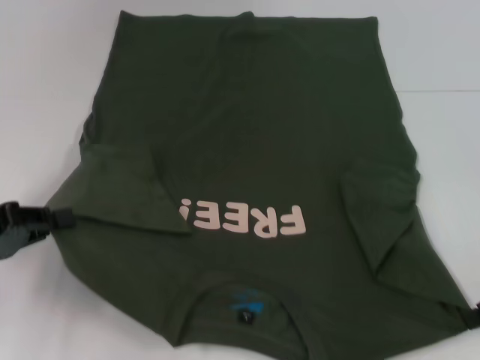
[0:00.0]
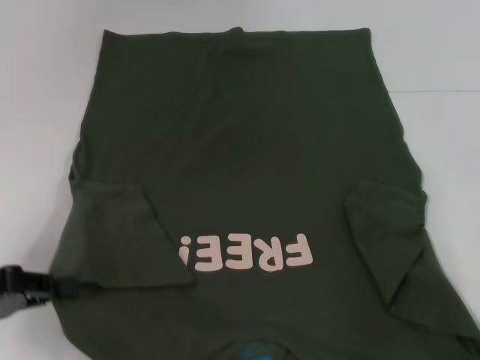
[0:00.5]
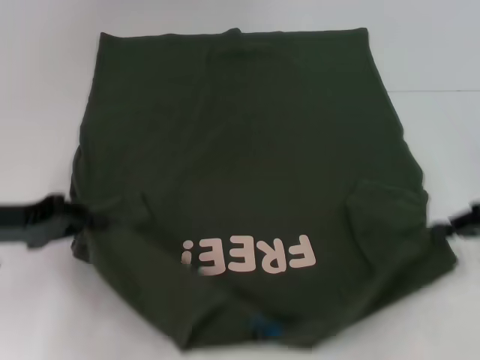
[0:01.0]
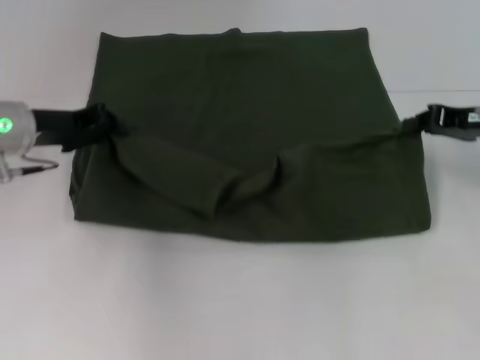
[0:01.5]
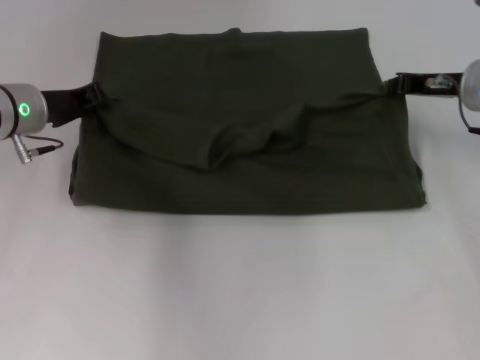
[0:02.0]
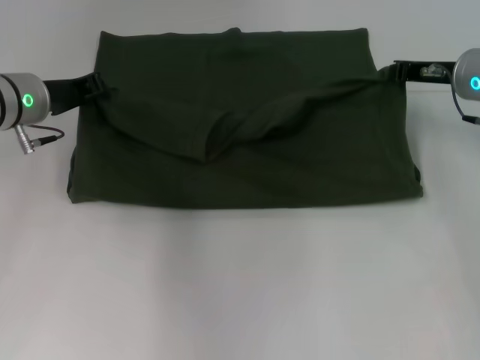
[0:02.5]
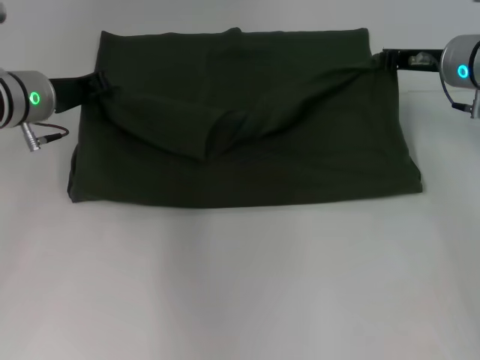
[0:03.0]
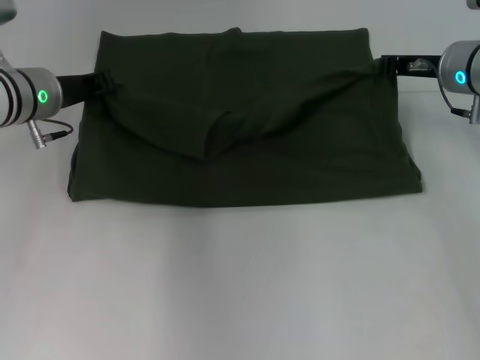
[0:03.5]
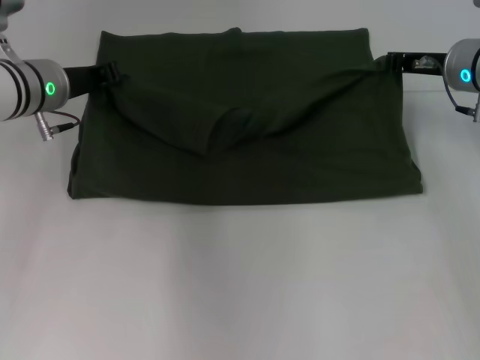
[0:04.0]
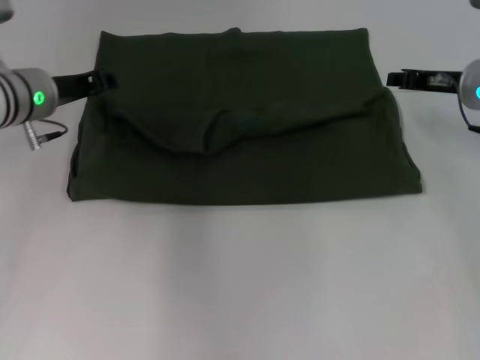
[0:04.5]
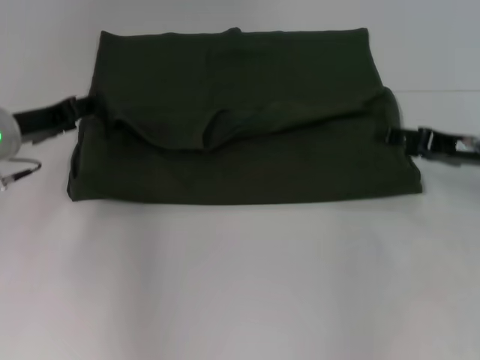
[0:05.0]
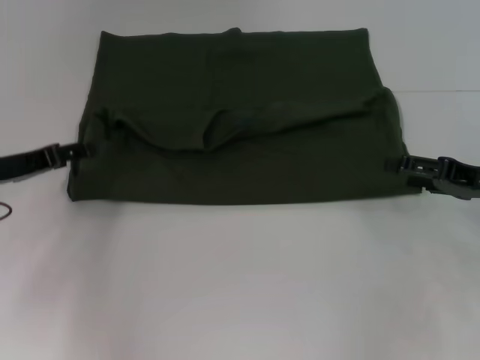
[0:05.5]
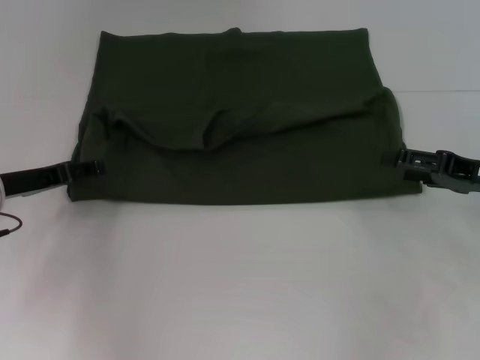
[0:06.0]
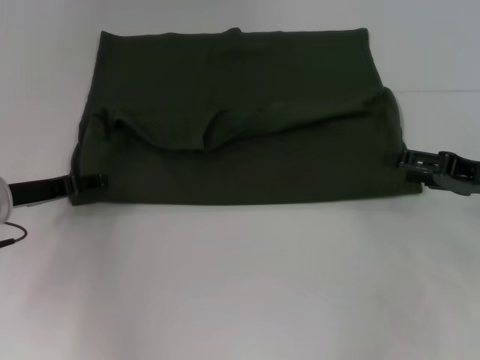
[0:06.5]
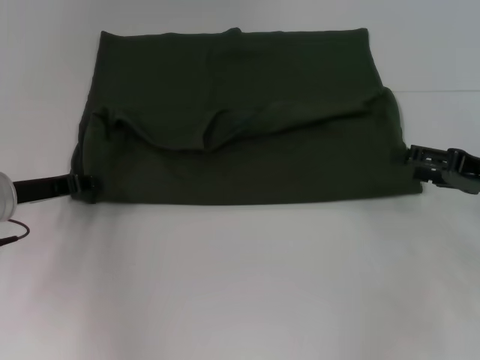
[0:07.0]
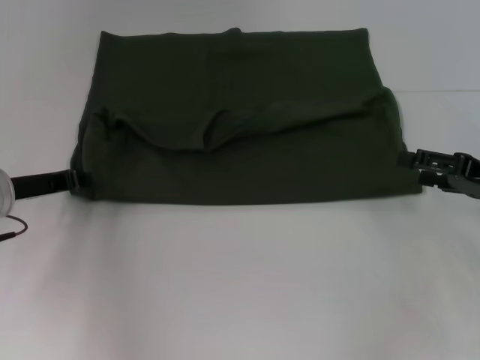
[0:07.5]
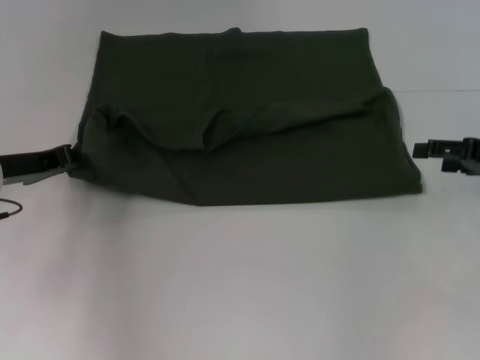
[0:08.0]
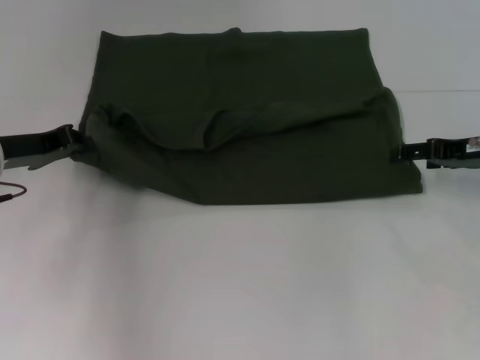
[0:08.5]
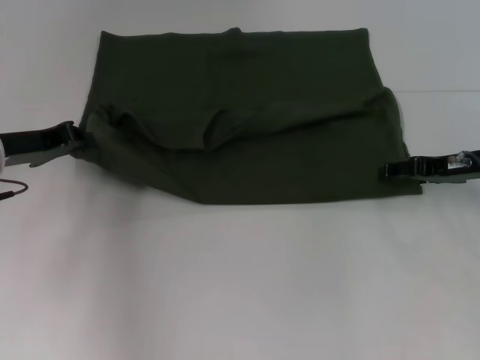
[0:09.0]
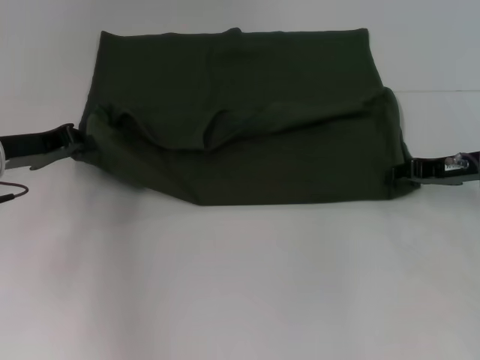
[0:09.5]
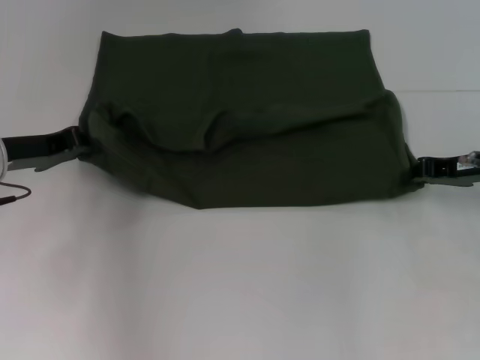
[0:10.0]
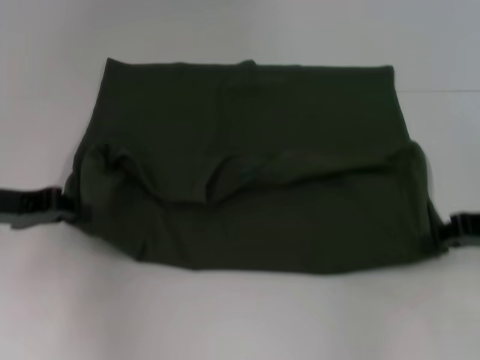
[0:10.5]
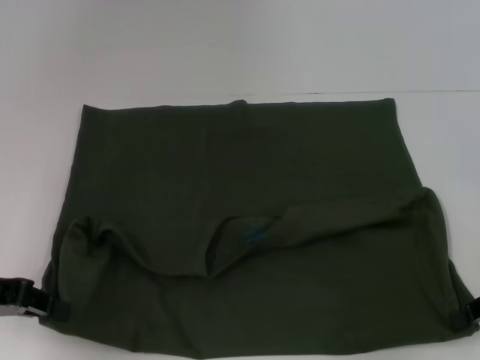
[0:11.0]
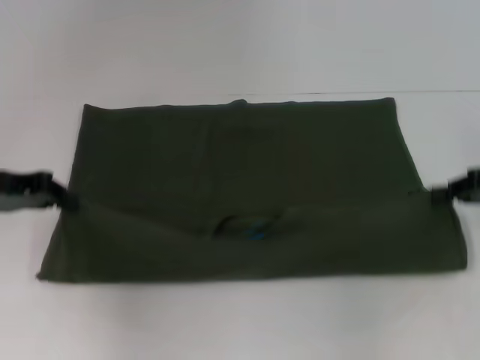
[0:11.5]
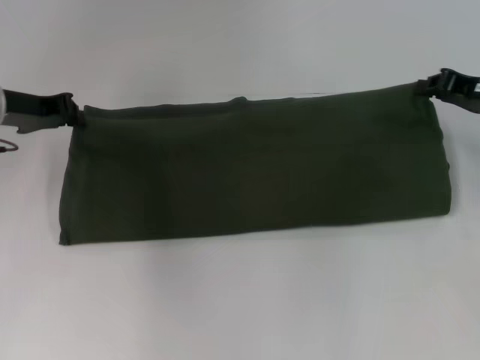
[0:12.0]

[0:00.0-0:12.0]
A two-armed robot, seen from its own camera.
Step, 0:00.0 to 0:05.0: Fold the clothes with your left hand.
Step, 0:00.0 to 0:05.0: Fold the clothes with your right hand.
Step, 0:05.5 to 0:10.5: Pull the clothes with your left hand.
Step, 0:05.5 to 0:10.5: Pull the clothes with your right hand.
0:00.0 to 0:02.0: The right gripper shifts roughly 15 cm forward and to the left, while the left gripper goes approximately 20 cm forward and to the right.
0:02.0 to 0:04.0: The grippers stay close to where they were, moving slightly.
0:04.0 to 0:06.0: The left gripper goes about 15 cm backward, to the left and downward, and opens its fingers; the right gripper goes some 15 cm backward and to the right, and opens.
0:06.0 to 0:08.0: The left gripper closes.
0:08.0 to 0:10.0: The right gripper changes place by approximately 5 cm, and closes its fingers.
0:10.0 to 0:12.0: The left gripper travels backward and back again, roughly 10 cm each way; the right gripper moves approximately 10 cm backward and comes back.

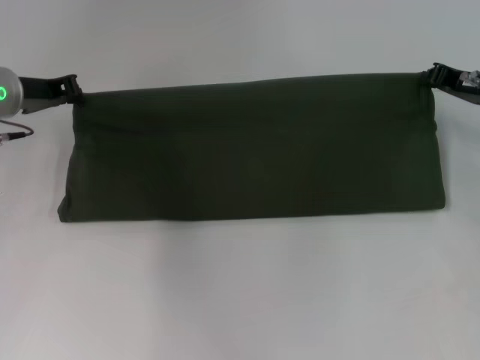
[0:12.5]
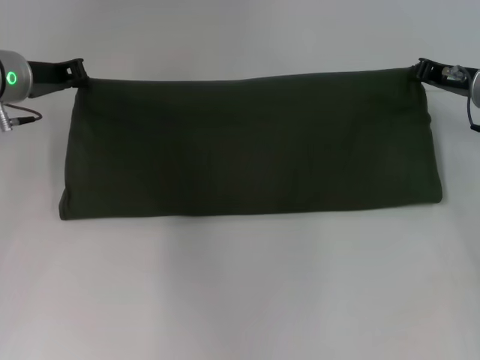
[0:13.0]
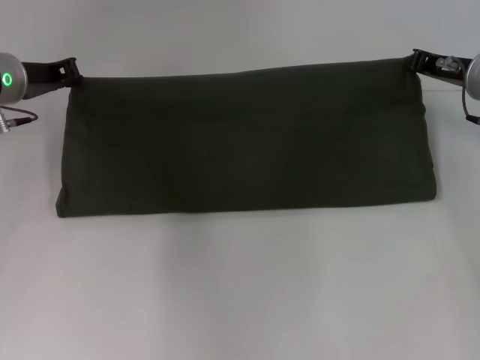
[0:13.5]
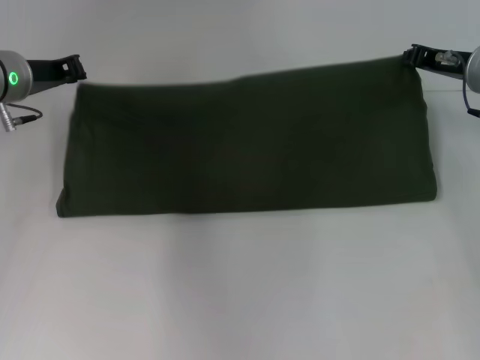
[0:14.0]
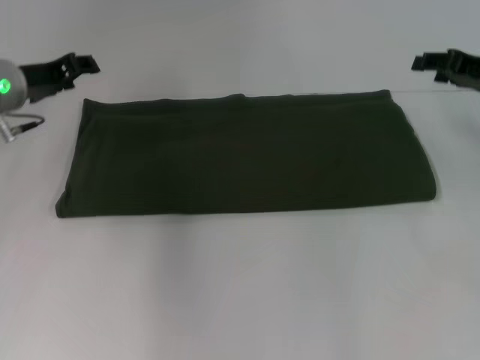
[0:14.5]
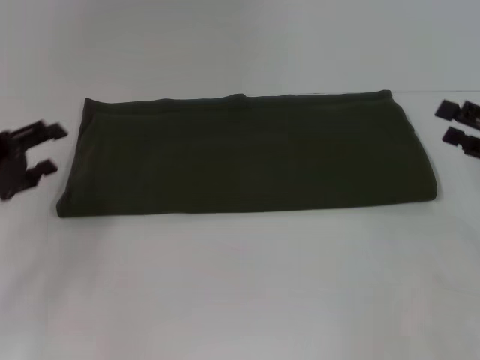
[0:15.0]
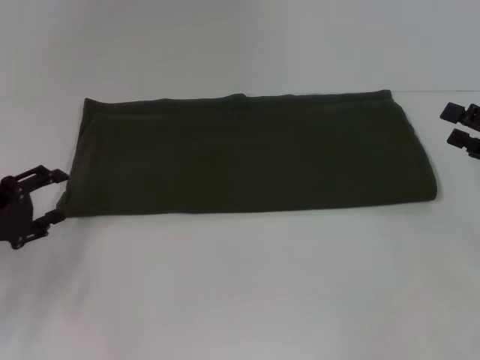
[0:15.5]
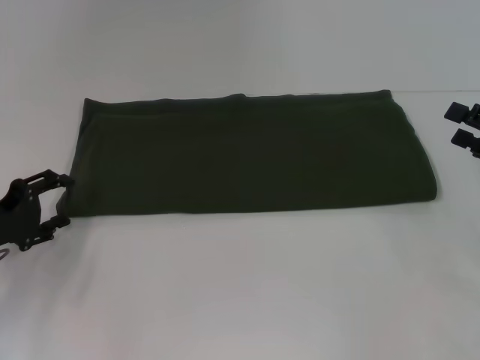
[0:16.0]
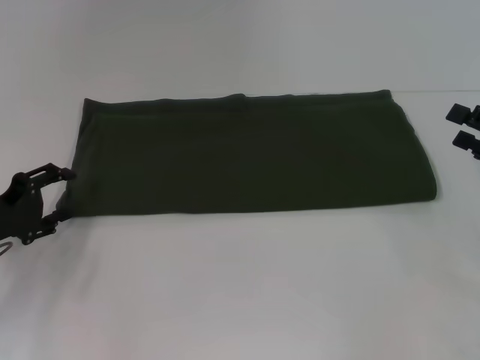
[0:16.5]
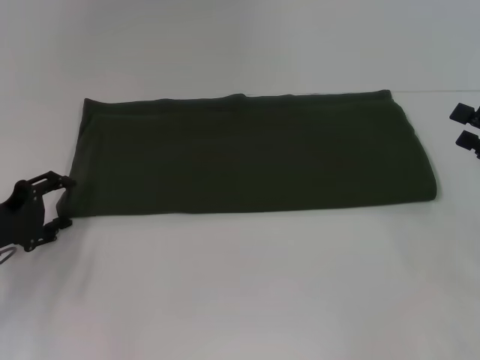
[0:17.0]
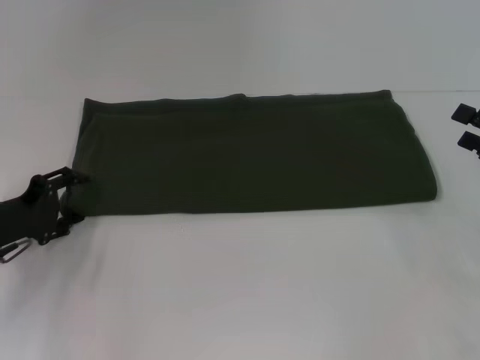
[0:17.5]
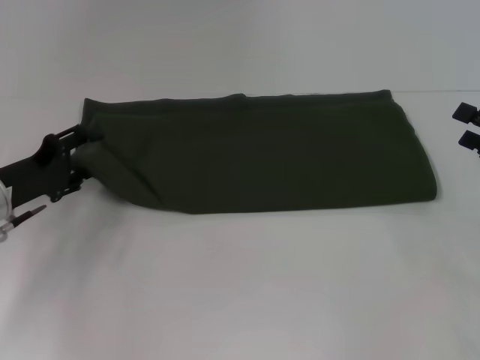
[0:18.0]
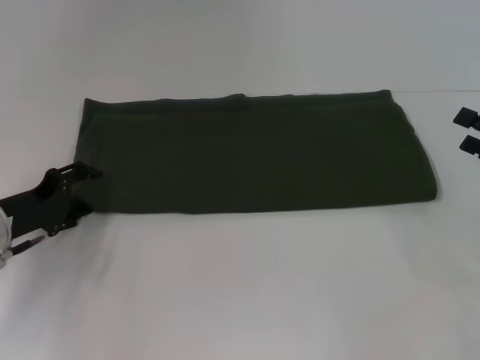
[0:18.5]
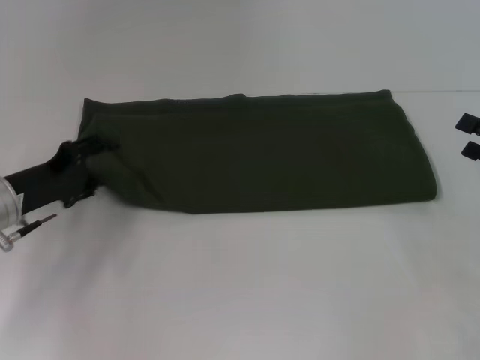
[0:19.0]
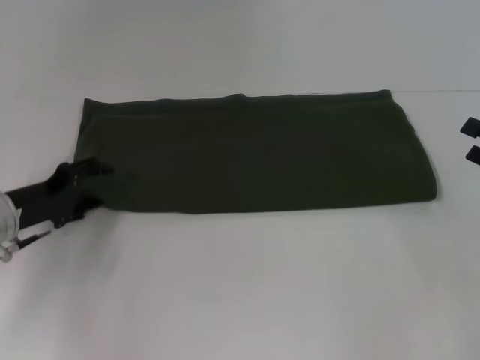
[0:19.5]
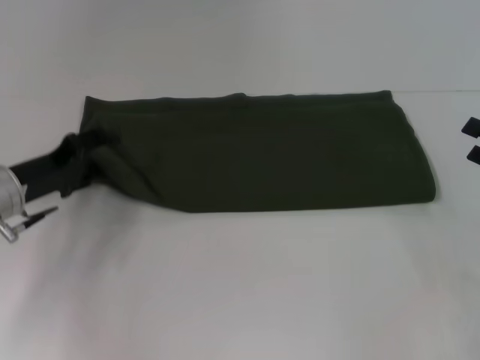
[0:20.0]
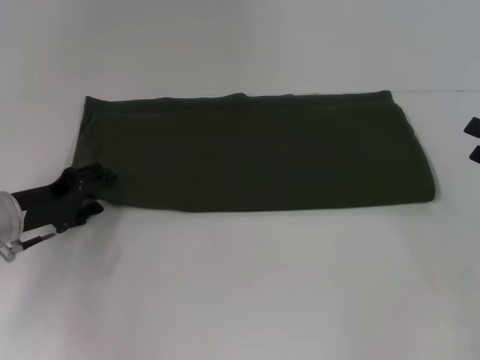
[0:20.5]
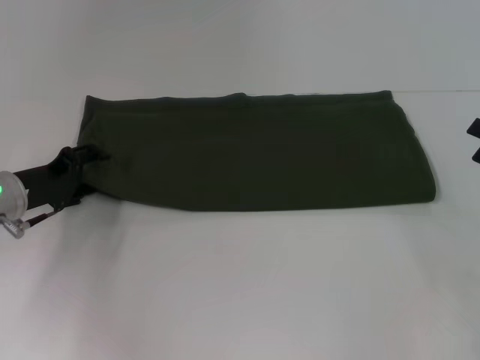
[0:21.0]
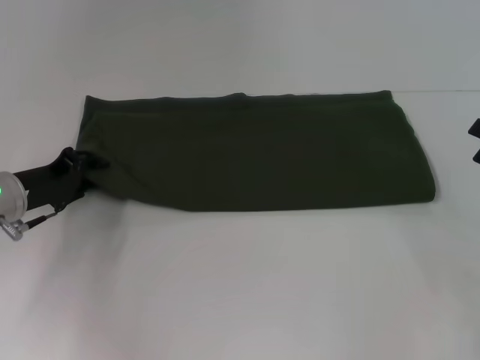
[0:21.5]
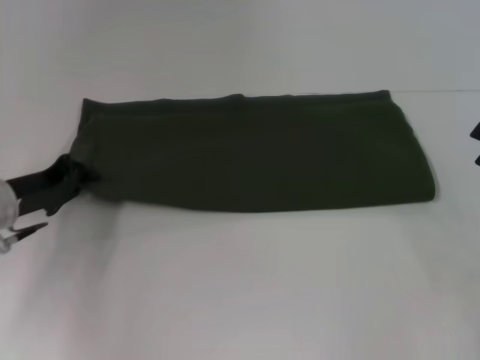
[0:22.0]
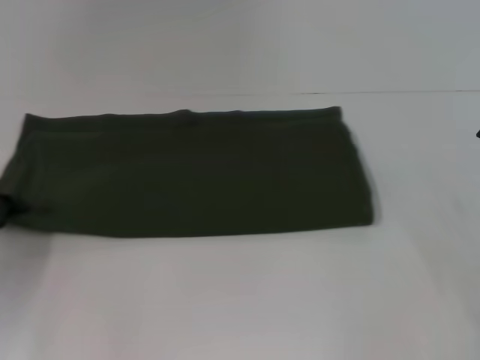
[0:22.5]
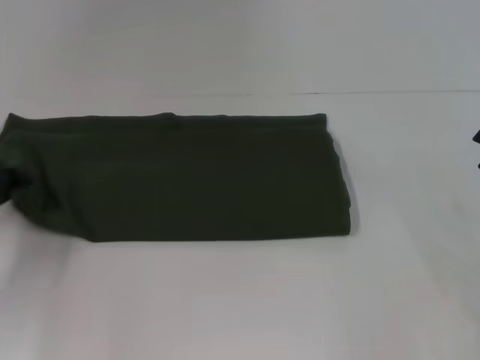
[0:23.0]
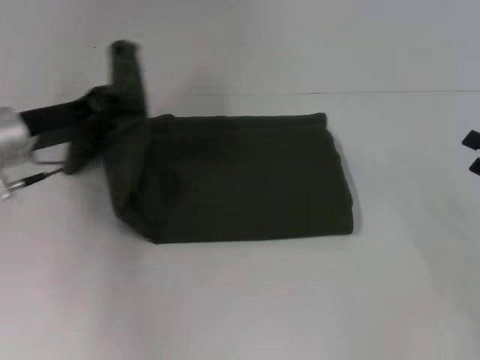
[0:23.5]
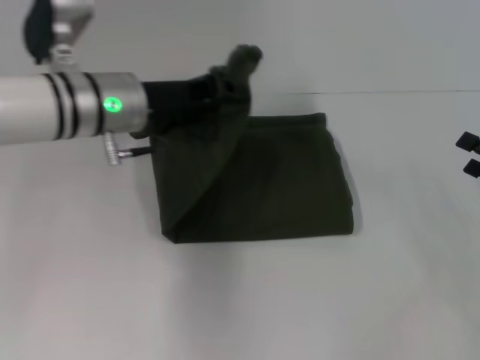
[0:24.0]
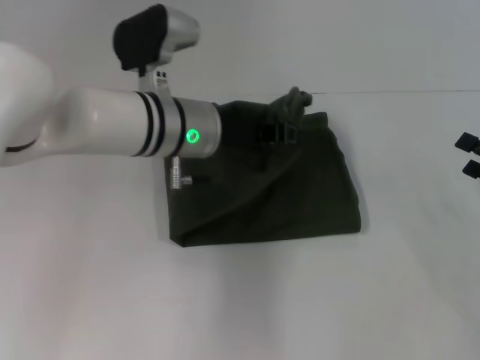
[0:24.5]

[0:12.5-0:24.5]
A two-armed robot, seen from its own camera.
0:12.5 to 0:14.5: The right gripper opens its fingers.
0:14.5 to 0:16.5: The left gripper moves backward, downward and to the left, roughly 15 cm, and opens. Meanwhile the right gripper moves backward and downward, about 15 cm, and opens up.
0:16.5 to 0:18.5: The grippers move only a little.
0:18.5 to 0:20.5: The grippers stay close to where they were, moving slightly.
0:20.5 to 0:22.5: The left gripper travels to the left by about 5 cm, and closes its fingers.
0:22.5 to 0:24.5: The left gripper is displaced to the right by some 25 cm.

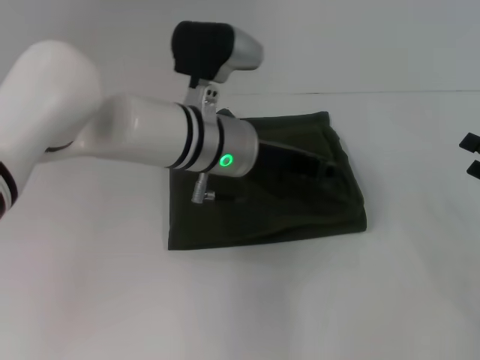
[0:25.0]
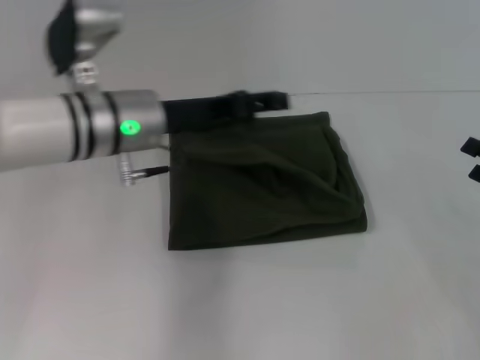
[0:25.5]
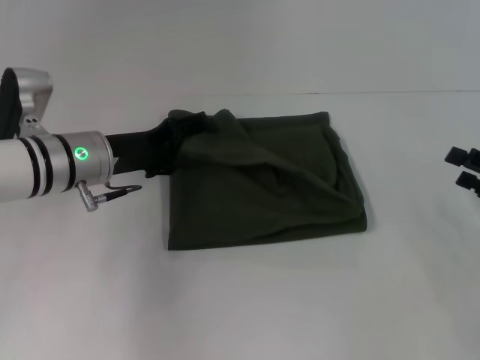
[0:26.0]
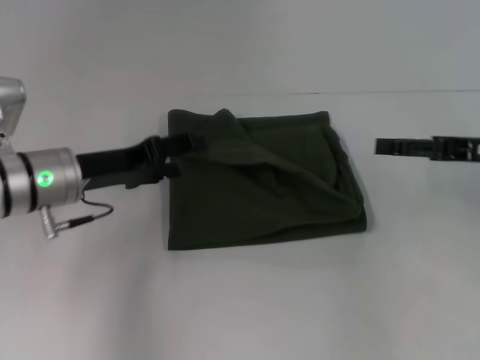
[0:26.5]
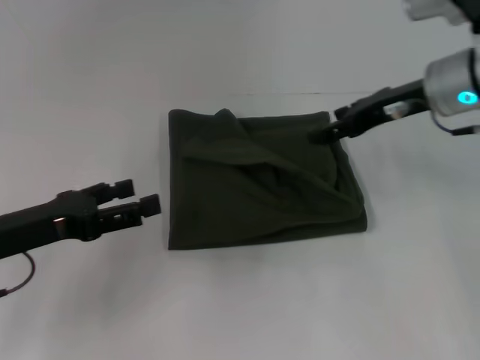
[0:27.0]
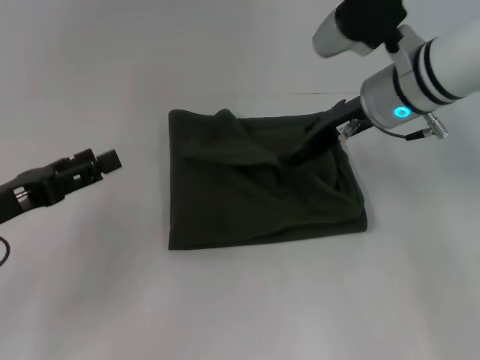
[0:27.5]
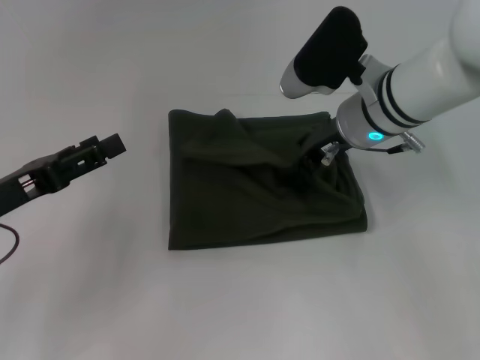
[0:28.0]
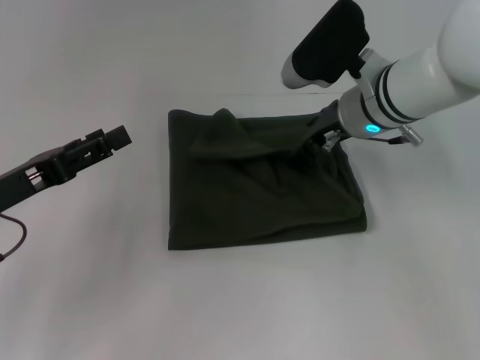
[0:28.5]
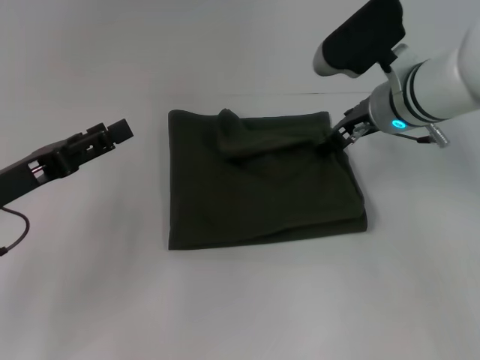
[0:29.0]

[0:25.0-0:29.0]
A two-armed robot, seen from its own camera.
0:25.0 to 0:27.0: The right gripper shifts about 25 cm to the left, forward and upward, while the left gripper travels to the left and backward by about 25 cm, and opens.
0:27.0 to 0:29.0: The right gripper shifts about 5 cm to the left.
